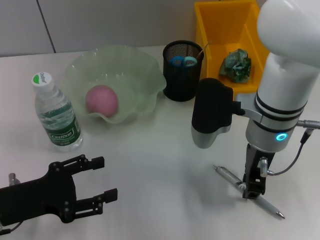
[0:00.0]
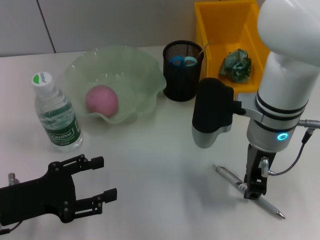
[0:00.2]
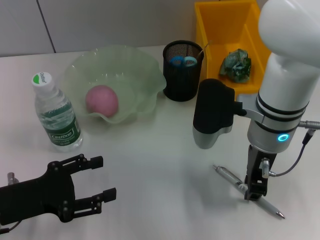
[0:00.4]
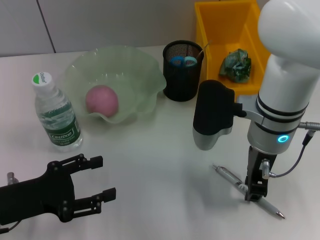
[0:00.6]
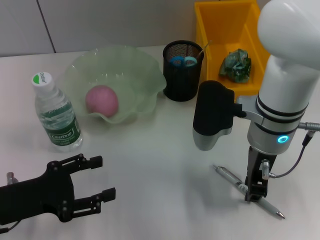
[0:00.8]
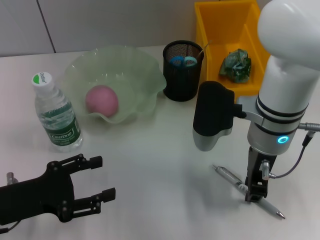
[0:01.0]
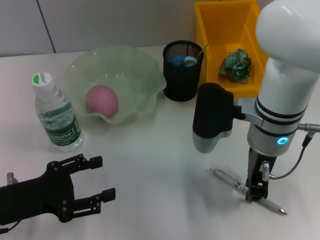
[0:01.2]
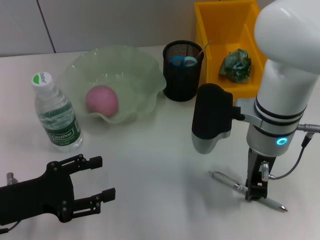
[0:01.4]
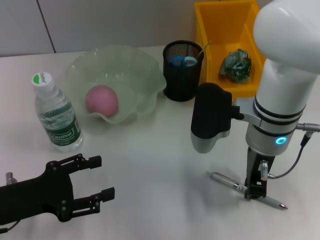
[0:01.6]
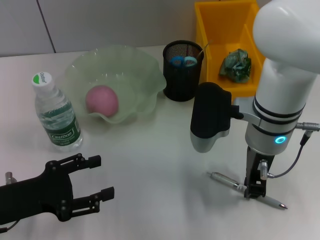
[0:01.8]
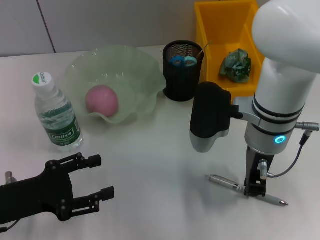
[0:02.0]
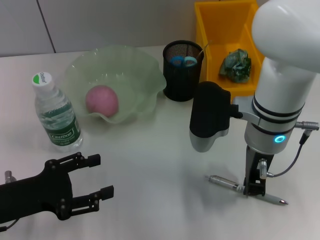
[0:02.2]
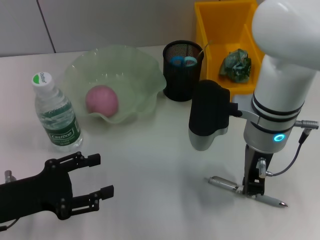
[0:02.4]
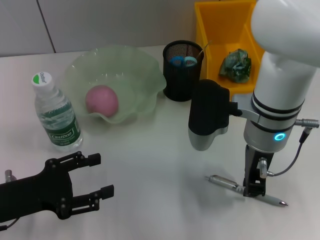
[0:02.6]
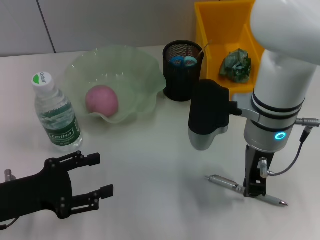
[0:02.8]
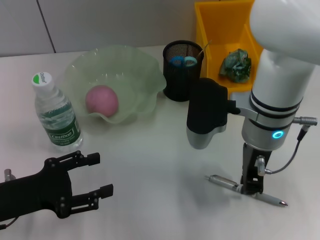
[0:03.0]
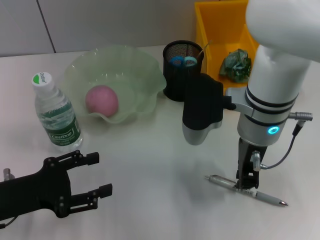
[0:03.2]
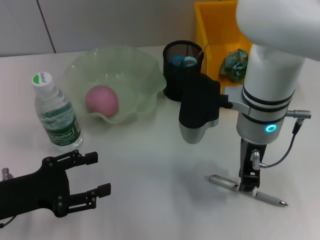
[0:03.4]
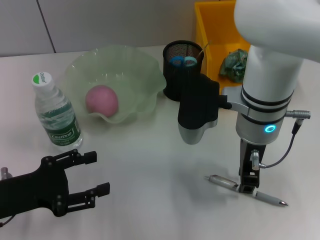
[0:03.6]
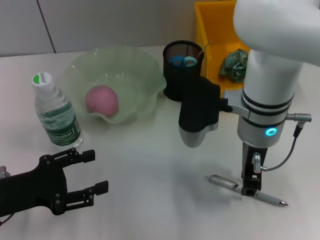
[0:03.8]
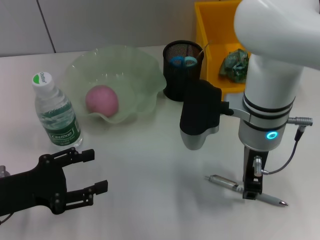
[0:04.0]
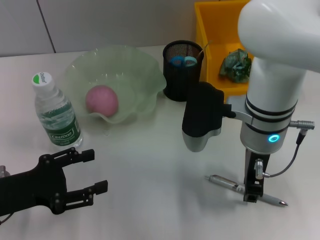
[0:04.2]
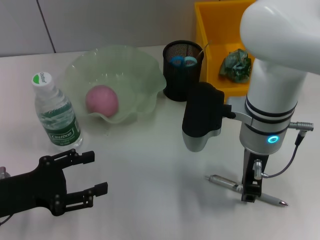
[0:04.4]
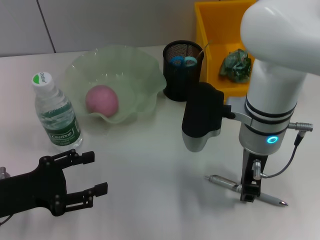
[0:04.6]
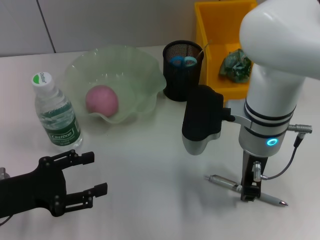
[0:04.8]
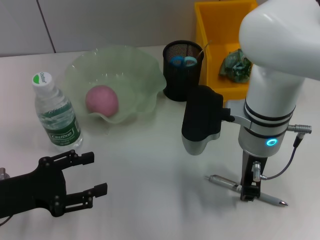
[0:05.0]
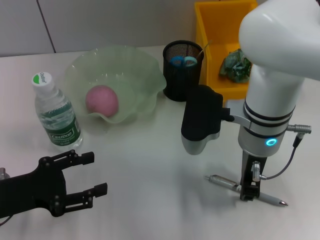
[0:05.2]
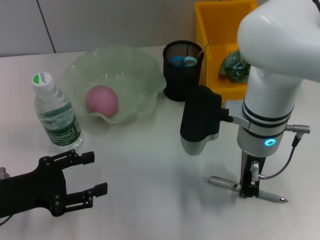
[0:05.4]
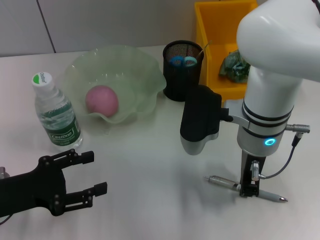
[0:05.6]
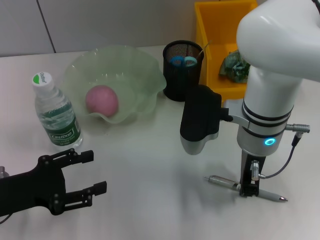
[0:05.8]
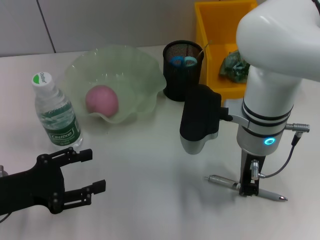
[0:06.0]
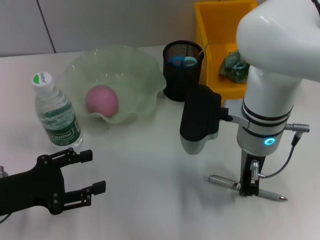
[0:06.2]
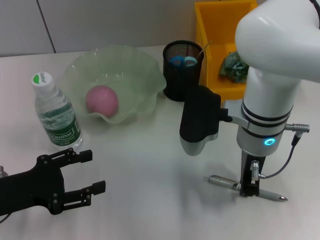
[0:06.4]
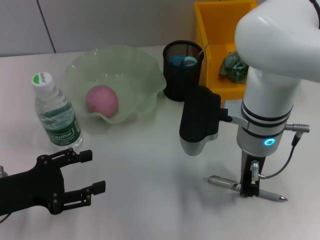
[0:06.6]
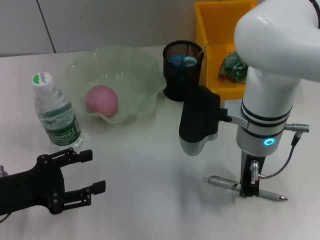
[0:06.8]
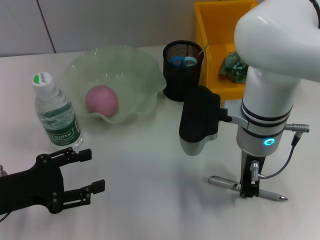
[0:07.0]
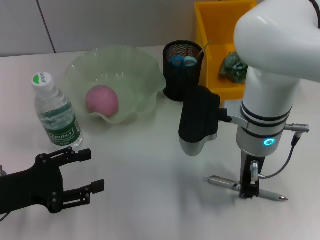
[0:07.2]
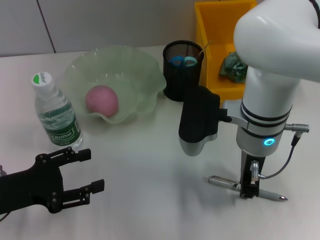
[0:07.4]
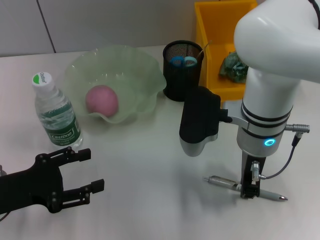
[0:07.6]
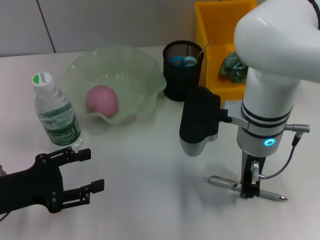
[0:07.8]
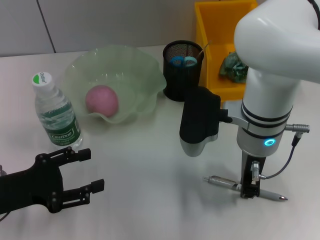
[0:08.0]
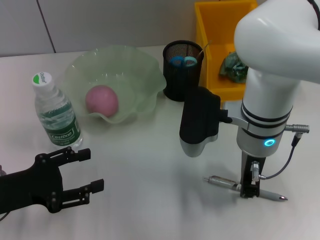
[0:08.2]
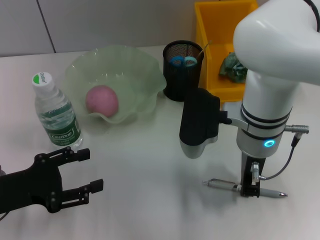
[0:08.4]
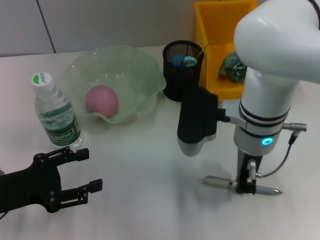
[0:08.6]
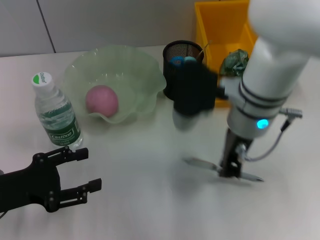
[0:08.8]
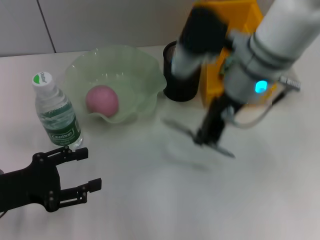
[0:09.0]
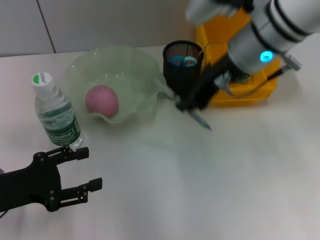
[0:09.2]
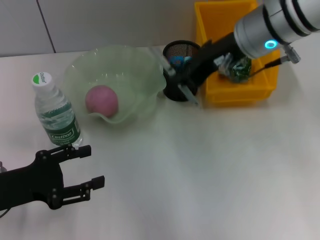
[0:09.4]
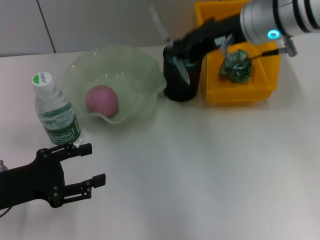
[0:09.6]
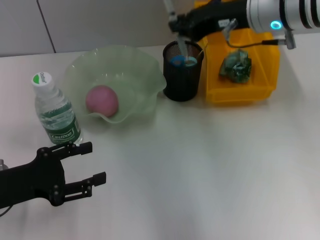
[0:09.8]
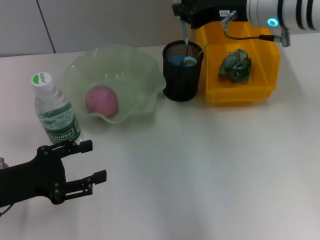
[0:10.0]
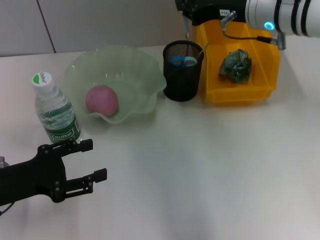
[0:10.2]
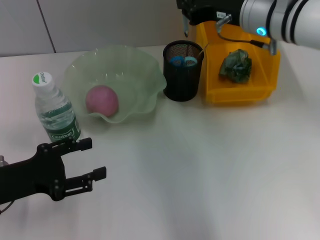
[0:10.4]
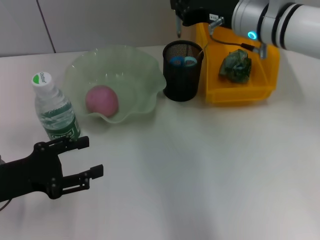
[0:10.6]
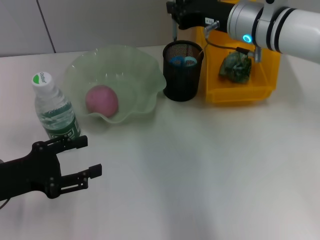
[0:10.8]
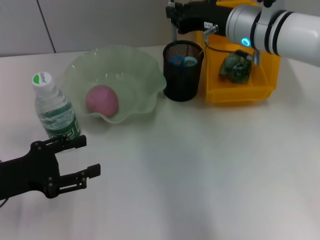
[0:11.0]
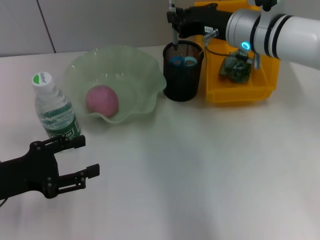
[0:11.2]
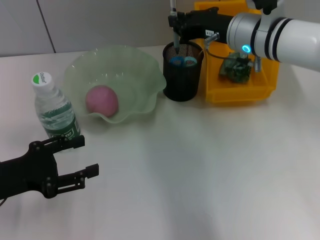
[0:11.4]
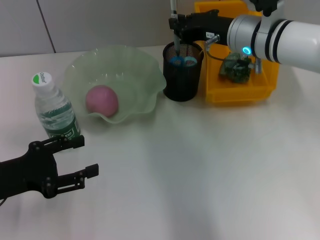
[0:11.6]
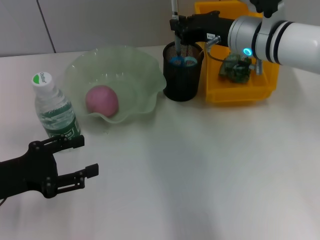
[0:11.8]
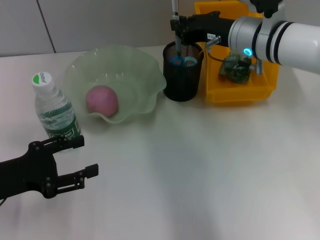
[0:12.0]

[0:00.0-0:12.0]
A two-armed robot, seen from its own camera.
Step, 0:00.0 to 0:08.2: Grab the gray spring-action pen with the right hand.
0:00.0 to 0:03.0: The two grippers keep their place.
0:03.0 to 0:04.4: Both grippers stay put.
0:04.4 to 0:07.6: The two grippers keep their place.
0:07.6 to 0:09.0: The right gripper goes roughly 5 cm upward.
0:09.0 to 0:10.4: The right gripper goes about 10 cm forward and to the right.
0:10.4 to 0:12.0: The grippers stay close to where they were, moving slightly.

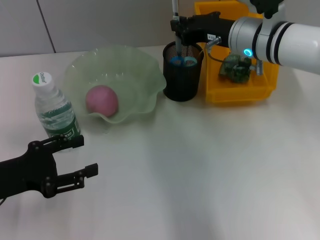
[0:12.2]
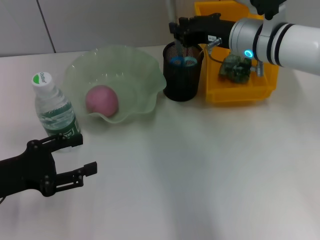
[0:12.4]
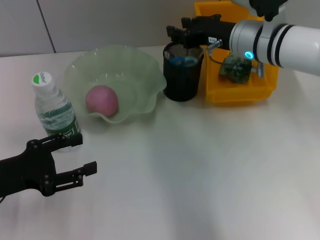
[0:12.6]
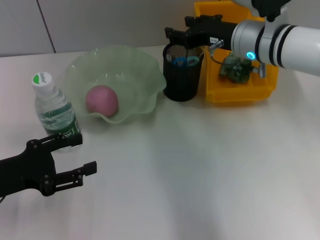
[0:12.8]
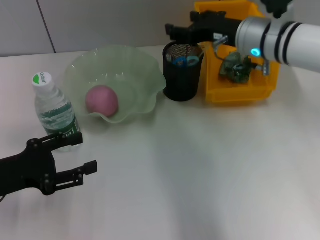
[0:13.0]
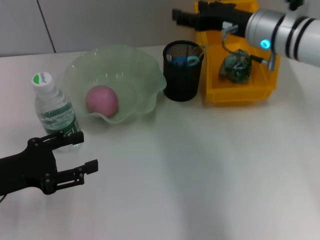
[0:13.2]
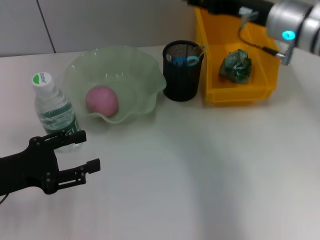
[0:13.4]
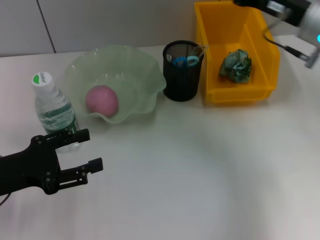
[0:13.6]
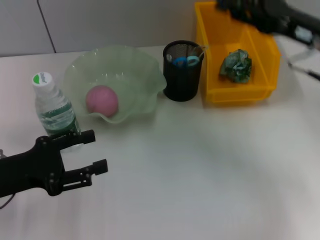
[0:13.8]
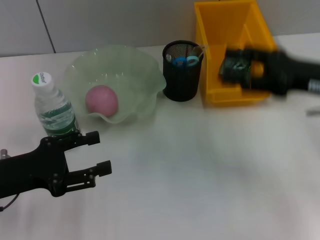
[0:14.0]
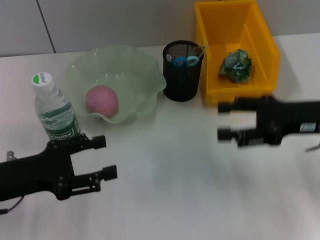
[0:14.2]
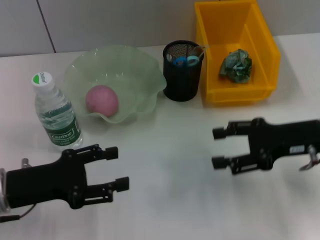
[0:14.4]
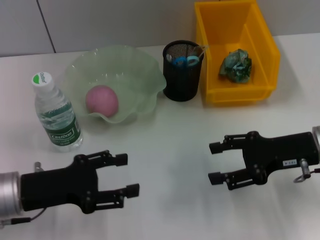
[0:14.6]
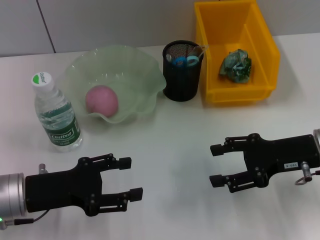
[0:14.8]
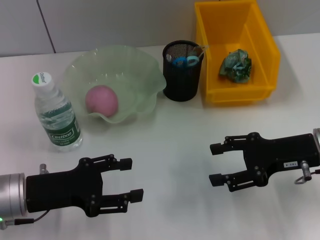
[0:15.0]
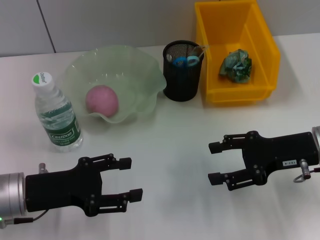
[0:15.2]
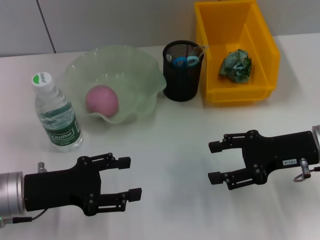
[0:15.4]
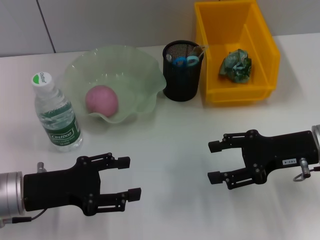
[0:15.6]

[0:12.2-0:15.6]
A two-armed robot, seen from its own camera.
0:12.2 to 0:13.8: The right gripper goes some 15 cm to the right and backward, and opens.
0:13.8 to 0:15.6: The right gripper shifts roughly 10 cm downward and backward.

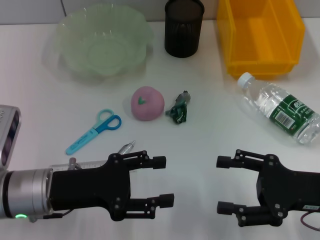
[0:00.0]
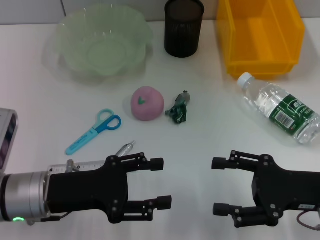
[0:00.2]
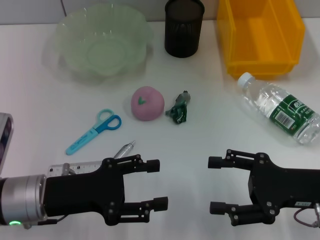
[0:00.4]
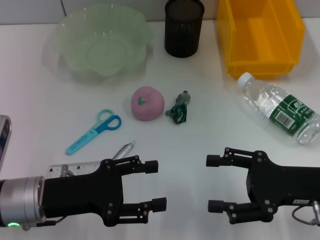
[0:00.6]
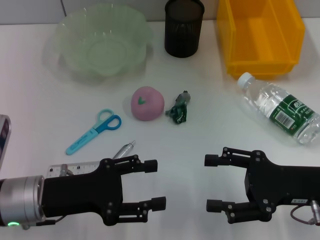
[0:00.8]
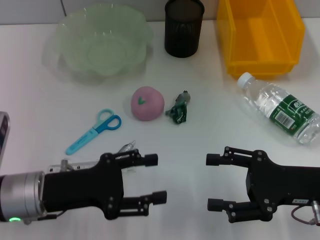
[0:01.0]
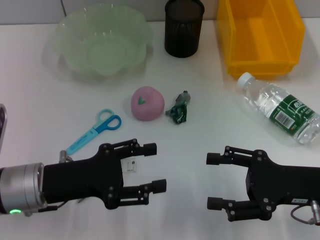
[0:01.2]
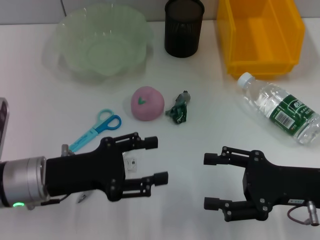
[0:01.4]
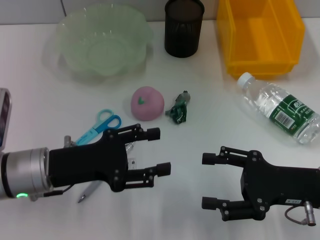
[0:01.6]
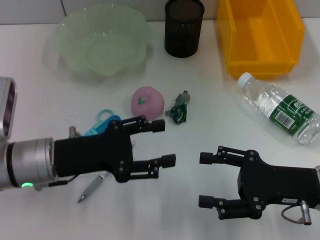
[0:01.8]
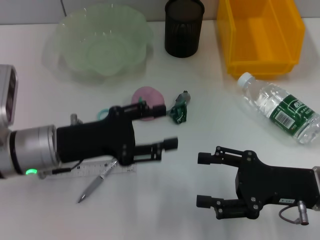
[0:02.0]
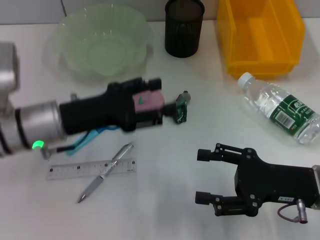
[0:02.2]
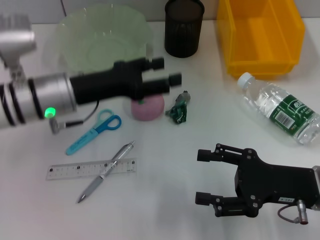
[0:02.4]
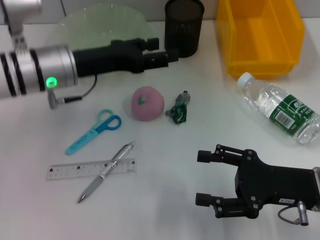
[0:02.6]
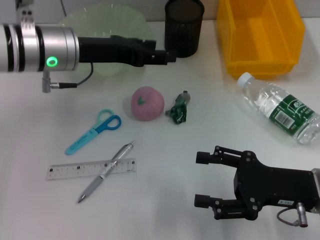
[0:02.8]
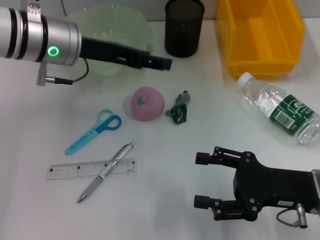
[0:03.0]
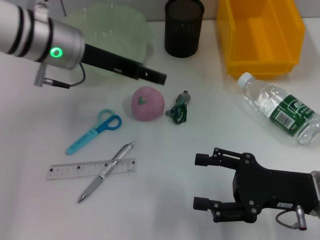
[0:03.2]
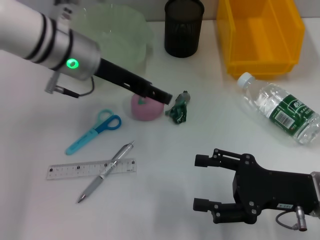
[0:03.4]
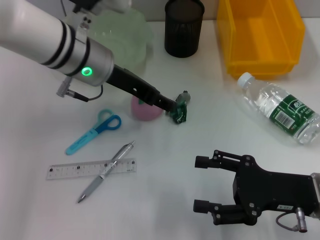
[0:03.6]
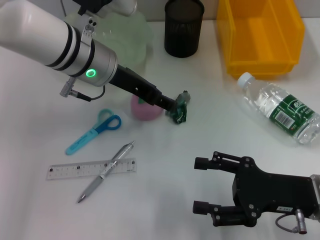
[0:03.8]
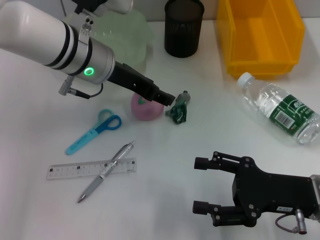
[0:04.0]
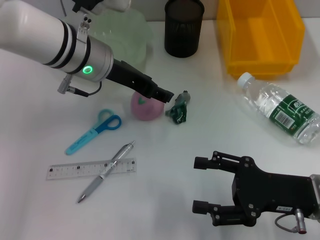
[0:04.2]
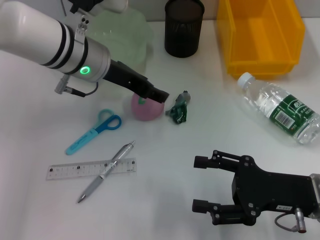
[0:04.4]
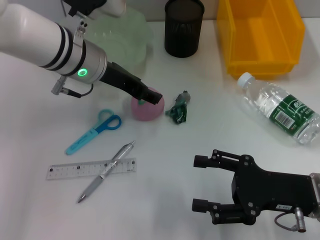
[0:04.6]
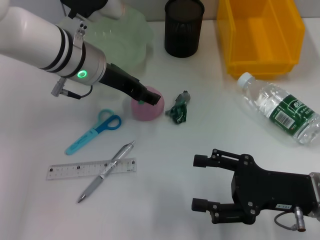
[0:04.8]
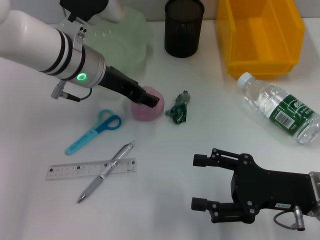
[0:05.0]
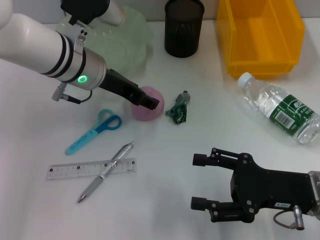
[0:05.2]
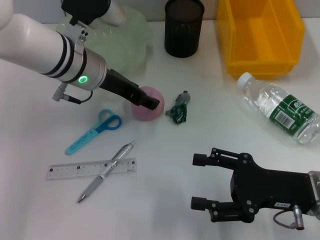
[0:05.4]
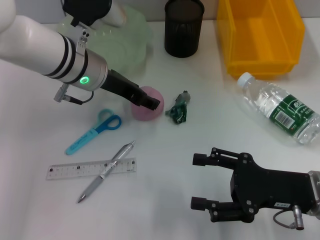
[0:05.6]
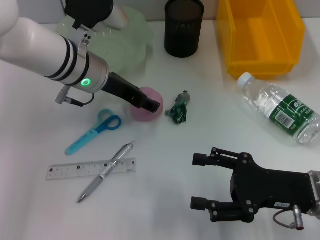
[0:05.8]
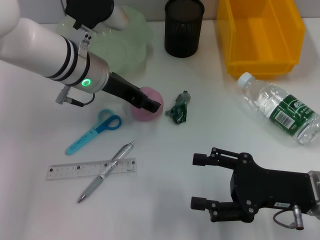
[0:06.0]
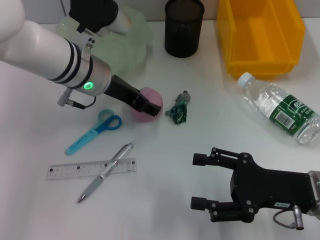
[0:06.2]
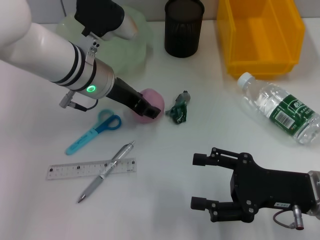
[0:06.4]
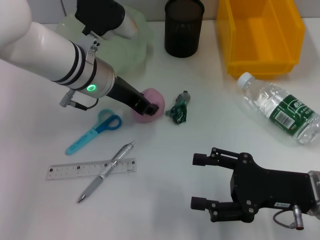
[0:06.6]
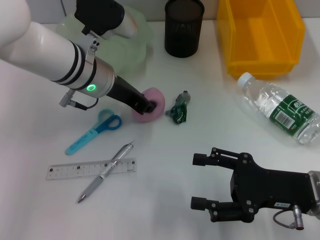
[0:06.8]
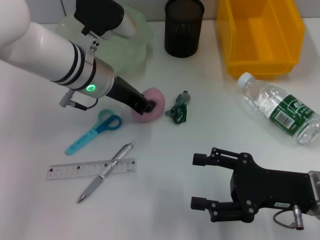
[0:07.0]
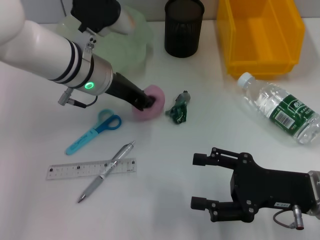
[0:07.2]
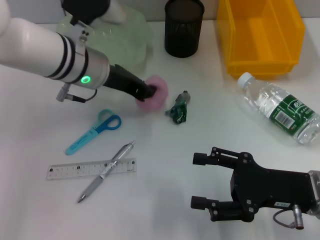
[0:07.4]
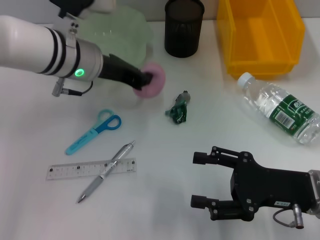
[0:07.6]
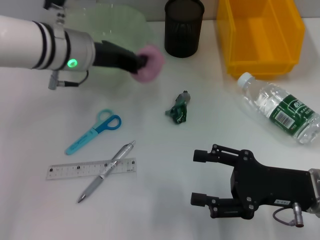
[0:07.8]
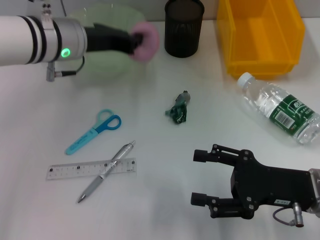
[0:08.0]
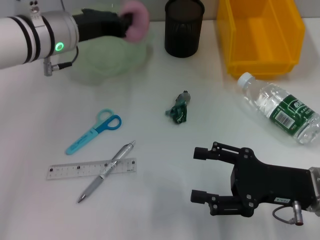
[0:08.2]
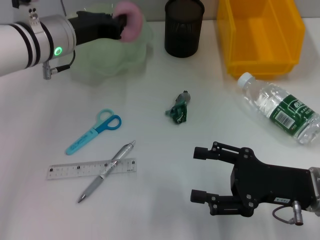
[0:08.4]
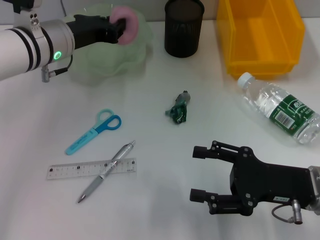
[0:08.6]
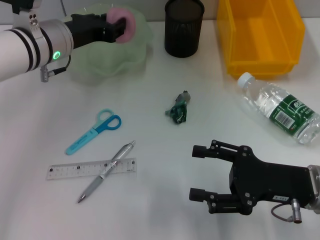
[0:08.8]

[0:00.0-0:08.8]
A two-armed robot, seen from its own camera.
Step, 0:00.0 to 0:07.0: Grab the peach with the left hand.
0:00.0 to 0:01.4: The grippers make only small movements.
0:01.4 to 0:03.0: The left gripper is displaced forward and upward by approximately 20 cm.
0:04.4 to 0:05.8: The grippers stay close to where they were, moving slightly.
0:05.8 to 0:07.4: The left gripper closes its fingers.
0:07.4 to 0:08.8: The left gripper is displaced to the left by some 5 cm.
